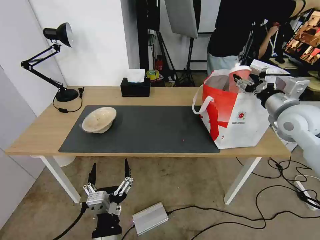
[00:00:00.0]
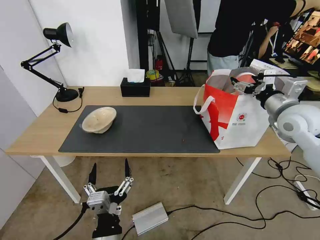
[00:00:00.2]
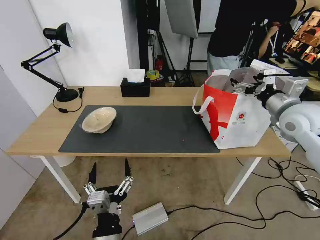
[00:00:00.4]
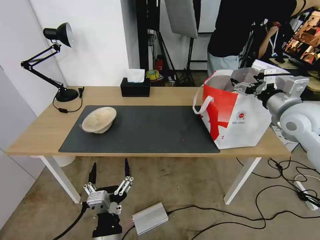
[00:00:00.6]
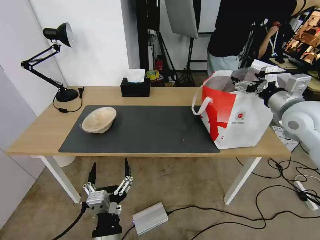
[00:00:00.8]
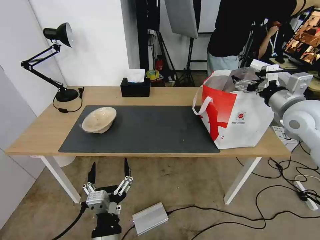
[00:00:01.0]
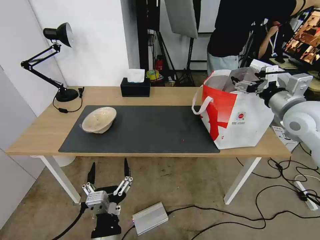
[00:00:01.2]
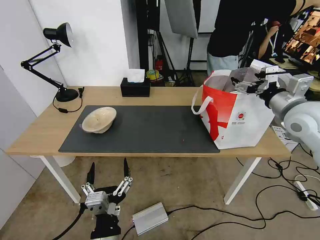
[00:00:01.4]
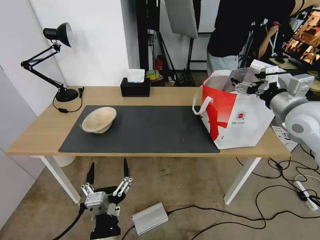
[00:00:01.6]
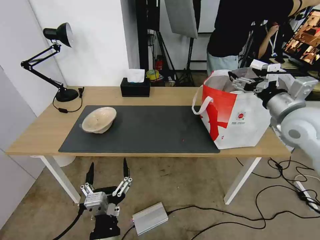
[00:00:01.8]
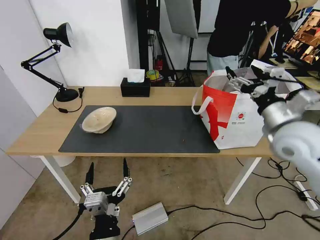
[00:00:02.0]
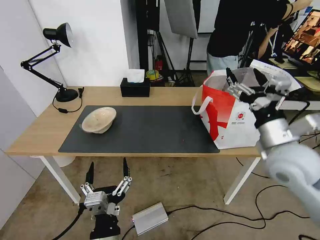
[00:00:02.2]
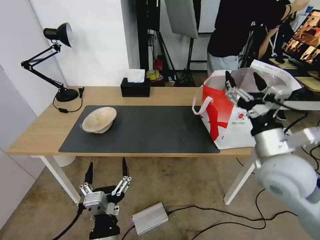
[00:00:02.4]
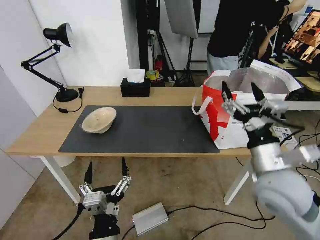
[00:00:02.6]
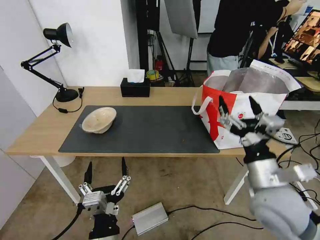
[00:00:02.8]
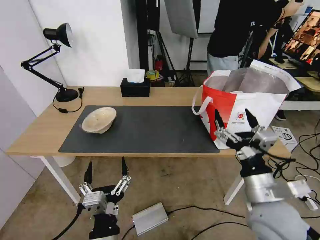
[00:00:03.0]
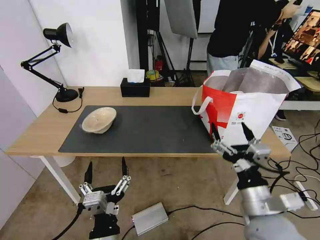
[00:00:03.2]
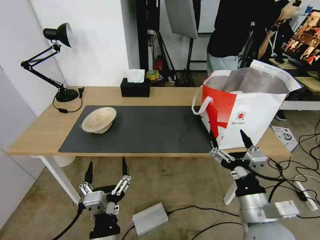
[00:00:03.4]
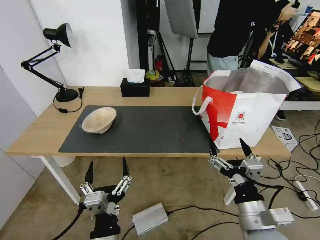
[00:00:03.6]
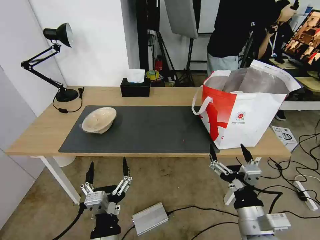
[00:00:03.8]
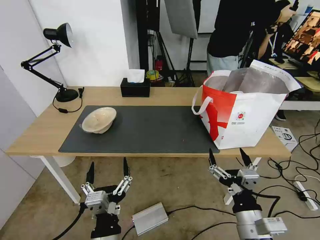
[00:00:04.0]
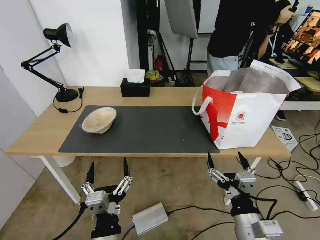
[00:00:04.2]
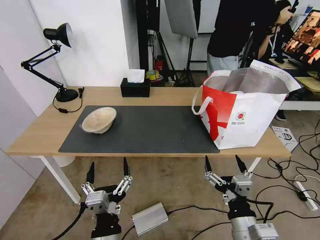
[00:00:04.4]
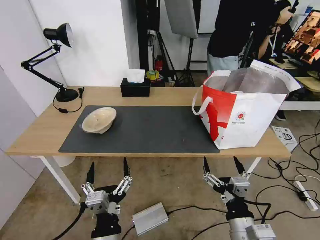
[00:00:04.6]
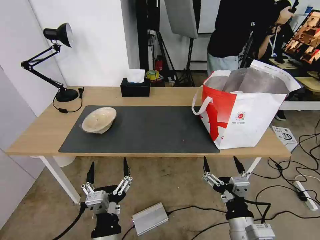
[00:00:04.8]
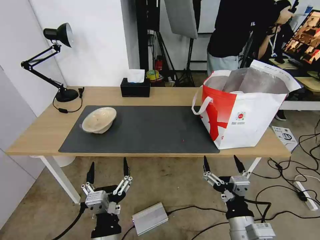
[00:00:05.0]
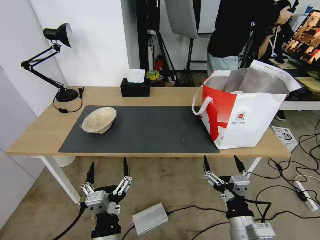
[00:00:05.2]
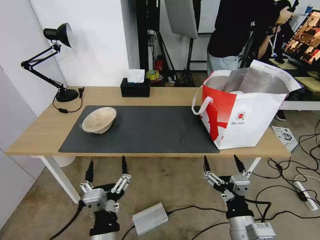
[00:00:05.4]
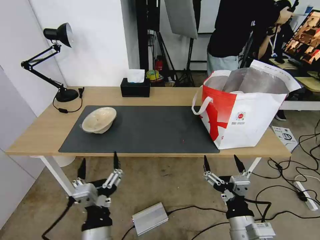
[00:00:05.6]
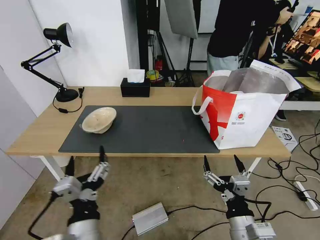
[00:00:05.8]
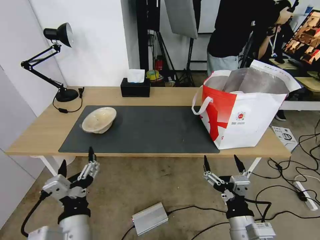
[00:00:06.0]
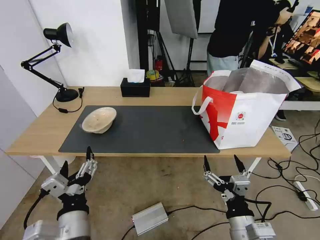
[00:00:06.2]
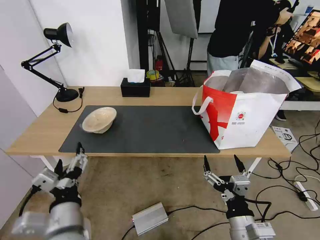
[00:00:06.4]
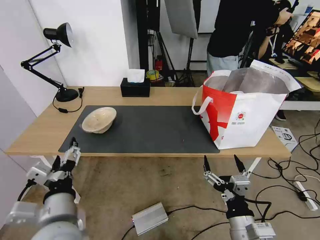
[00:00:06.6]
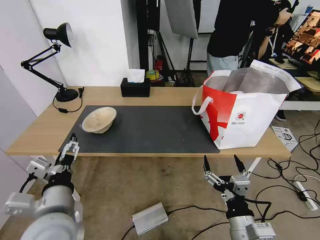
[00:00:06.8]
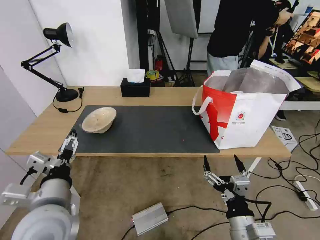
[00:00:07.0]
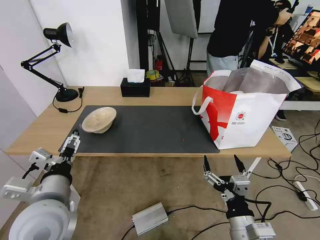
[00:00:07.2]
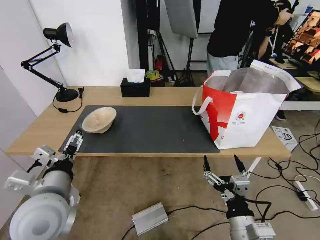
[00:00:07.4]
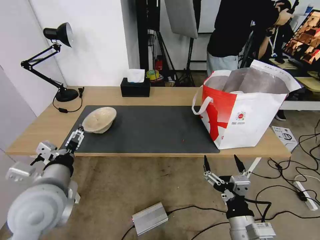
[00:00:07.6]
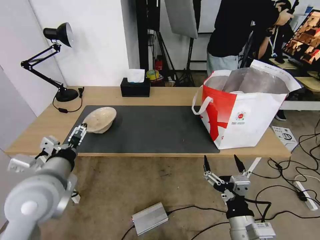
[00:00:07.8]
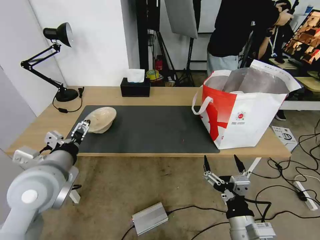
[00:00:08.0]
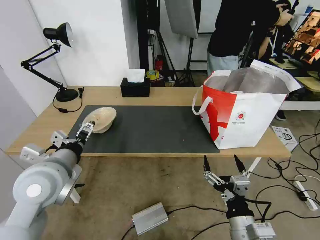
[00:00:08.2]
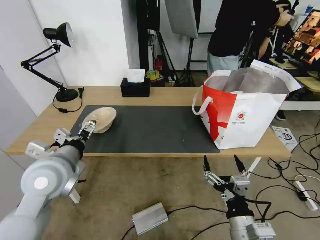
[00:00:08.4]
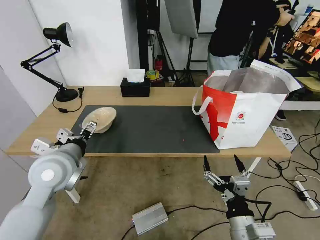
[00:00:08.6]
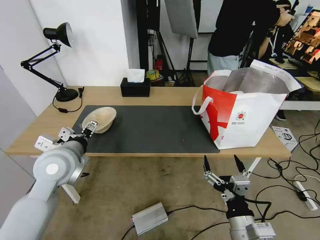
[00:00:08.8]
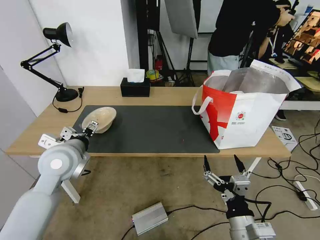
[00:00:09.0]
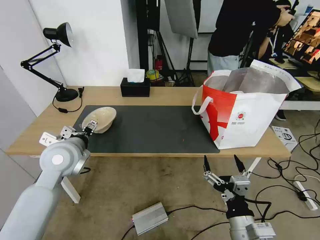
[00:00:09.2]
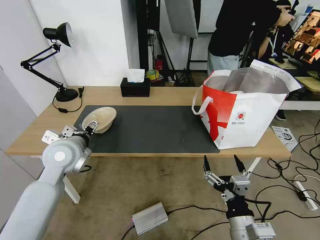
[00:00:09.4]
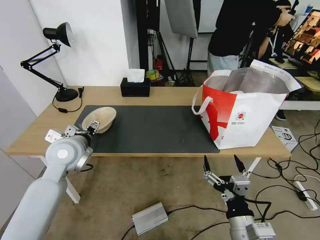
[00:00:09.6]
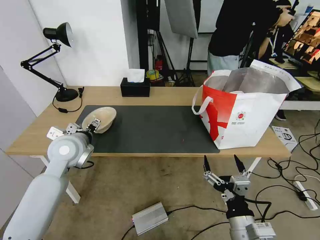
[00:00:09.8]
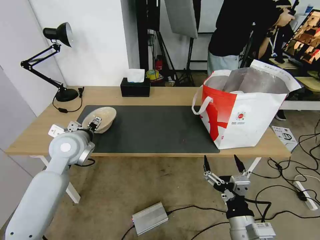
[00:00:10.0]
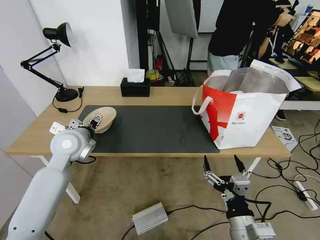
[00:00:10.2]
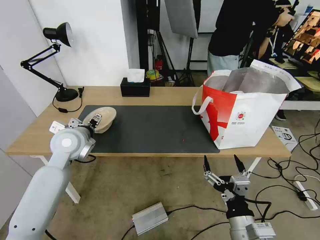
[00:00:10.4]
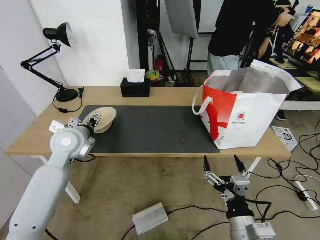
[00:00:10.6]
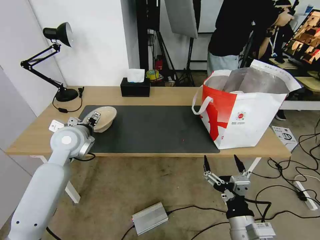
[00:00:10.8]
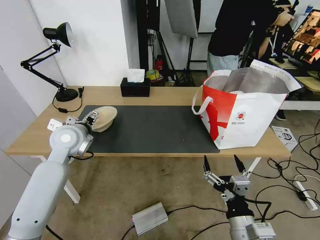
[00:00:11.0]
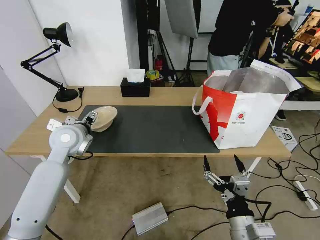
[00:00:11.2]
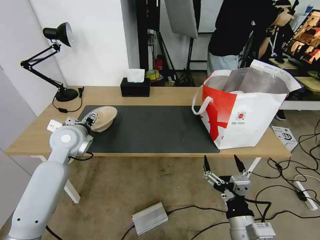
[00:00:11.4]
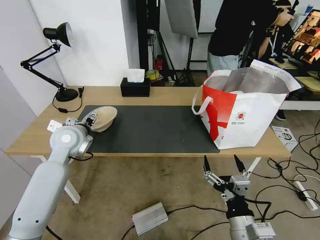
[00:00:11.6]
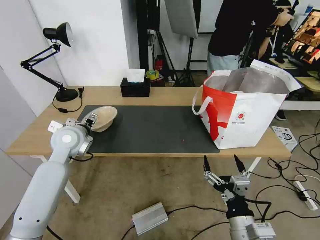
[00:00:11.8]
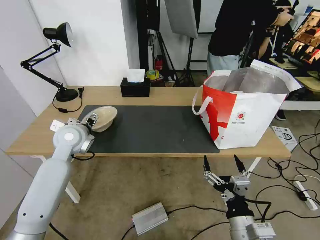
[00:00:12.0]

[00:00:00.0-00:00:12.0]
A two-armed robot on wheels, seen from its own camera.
Task of the whole recording: Pick up the trash from the table and place it into the takeout bag.
00:00:00.0 to 00:00:01.6: The grippers make only small movements.
00:00:01.6 to 00:00:03.0: The right gripper travels backward, to the left and downward by about 25 cm.
00:00:03.0 to 00:00:04.4: The right gripper goes some 10 cm downward and backward.
00:00:04.4 to 00:00:06.0: The left gripper travels to the left by some 5 cm.
00:00:06.0 to 00:00:07.6: The left gripper goes roughly 15 cm forward, to the left and upward.
00:00:07.6 to 00:00:09.0: The left gripper shifts some 10 cm forward.
00:00:09.0 to 00:00:10.4: The left gripper moves forward, about 5 cm.
00:00:10.4 to 00:00:12.0: The grippers stay close to where they were, moving slightly.

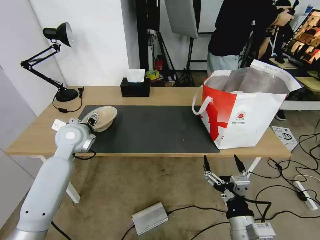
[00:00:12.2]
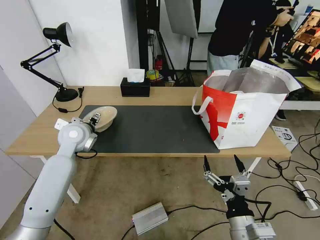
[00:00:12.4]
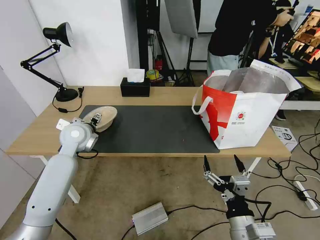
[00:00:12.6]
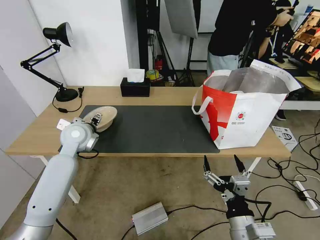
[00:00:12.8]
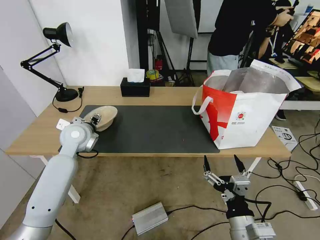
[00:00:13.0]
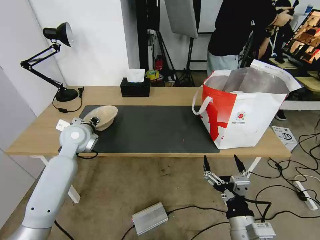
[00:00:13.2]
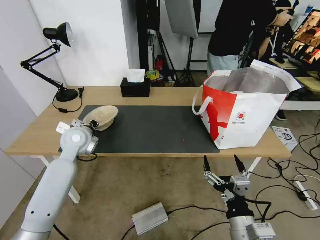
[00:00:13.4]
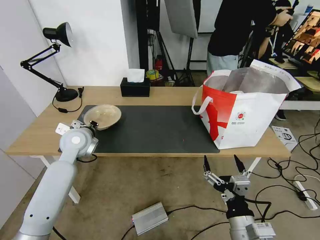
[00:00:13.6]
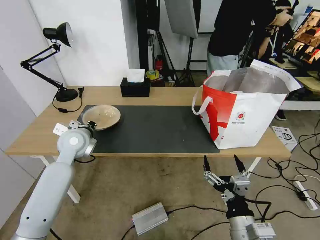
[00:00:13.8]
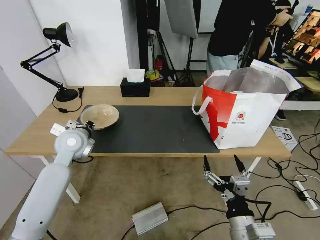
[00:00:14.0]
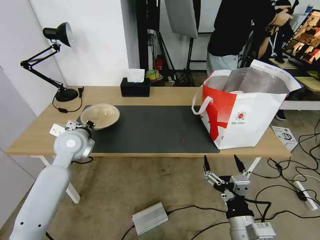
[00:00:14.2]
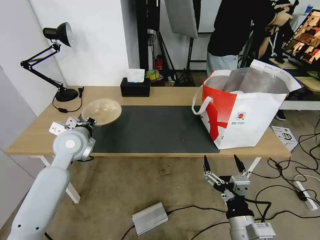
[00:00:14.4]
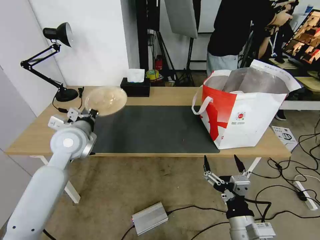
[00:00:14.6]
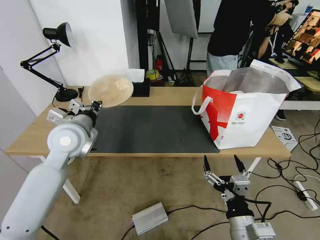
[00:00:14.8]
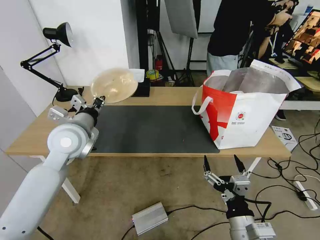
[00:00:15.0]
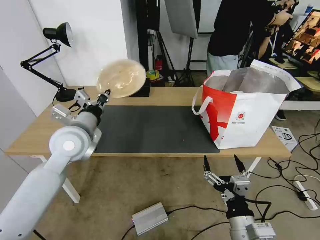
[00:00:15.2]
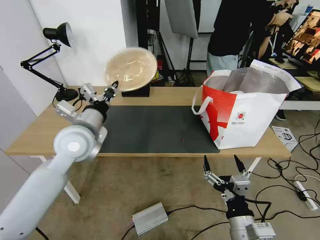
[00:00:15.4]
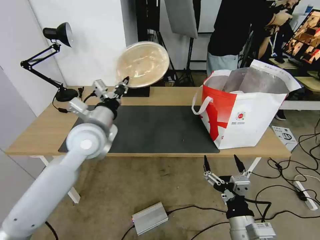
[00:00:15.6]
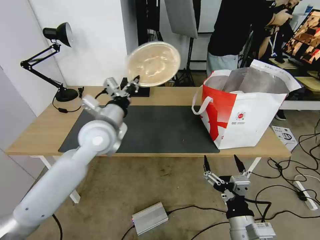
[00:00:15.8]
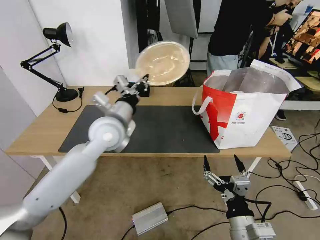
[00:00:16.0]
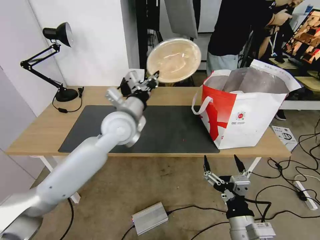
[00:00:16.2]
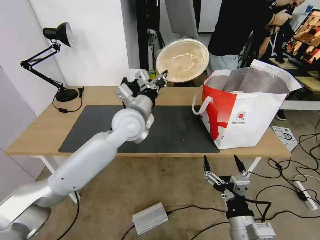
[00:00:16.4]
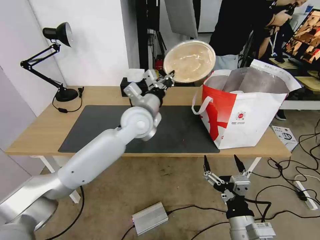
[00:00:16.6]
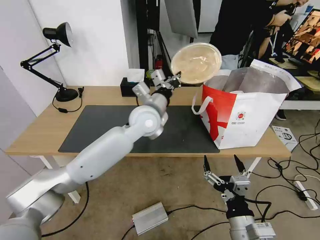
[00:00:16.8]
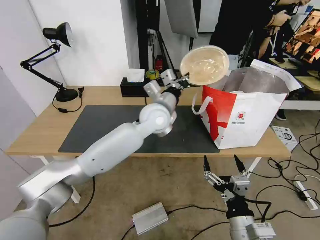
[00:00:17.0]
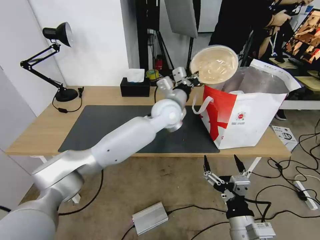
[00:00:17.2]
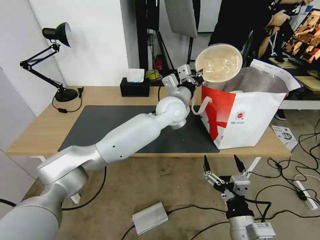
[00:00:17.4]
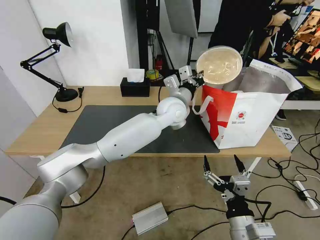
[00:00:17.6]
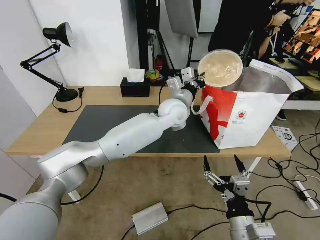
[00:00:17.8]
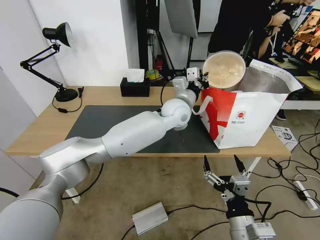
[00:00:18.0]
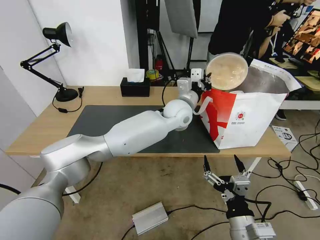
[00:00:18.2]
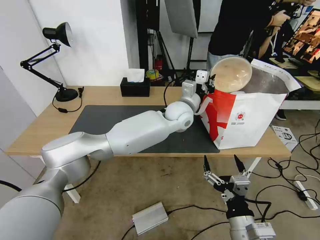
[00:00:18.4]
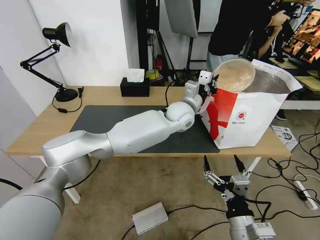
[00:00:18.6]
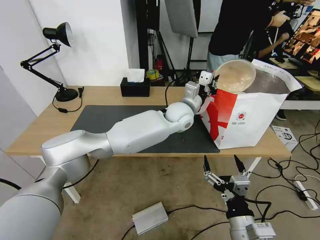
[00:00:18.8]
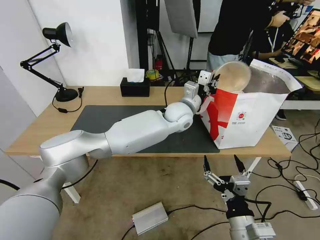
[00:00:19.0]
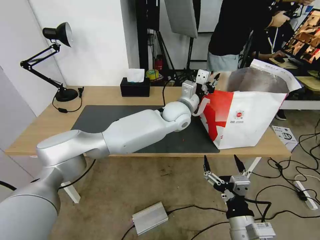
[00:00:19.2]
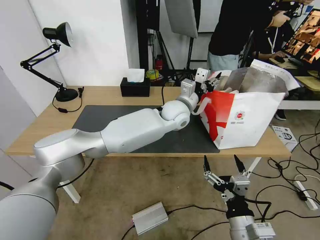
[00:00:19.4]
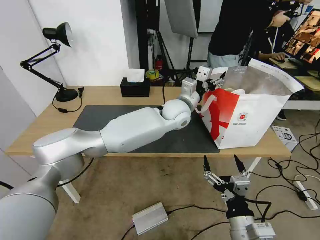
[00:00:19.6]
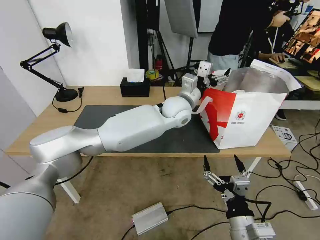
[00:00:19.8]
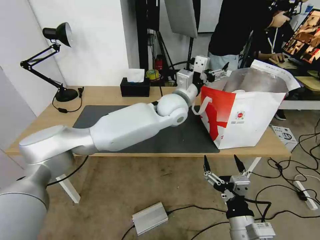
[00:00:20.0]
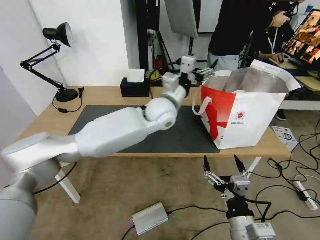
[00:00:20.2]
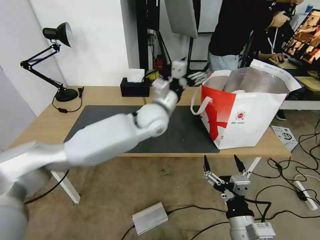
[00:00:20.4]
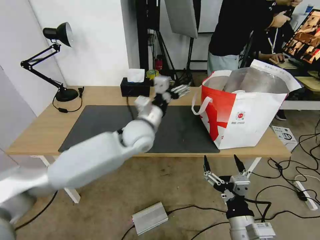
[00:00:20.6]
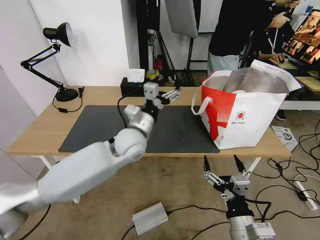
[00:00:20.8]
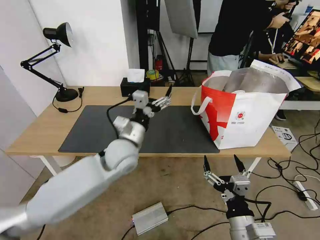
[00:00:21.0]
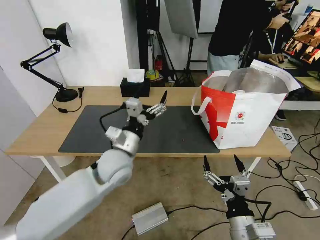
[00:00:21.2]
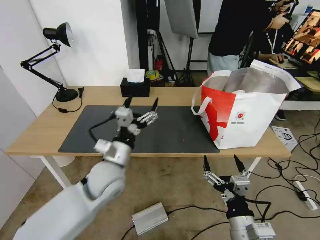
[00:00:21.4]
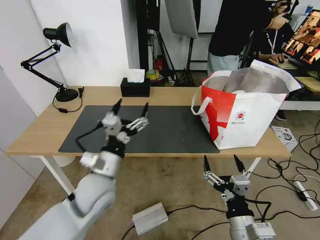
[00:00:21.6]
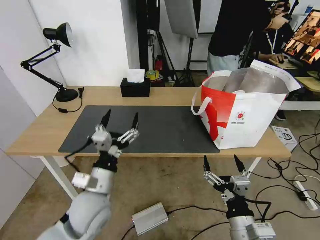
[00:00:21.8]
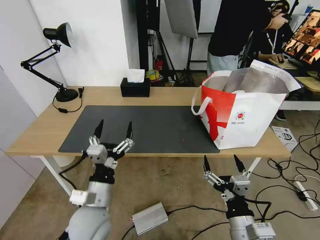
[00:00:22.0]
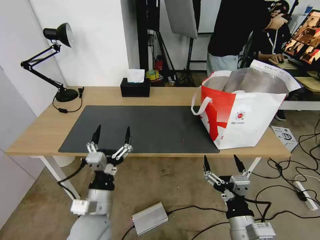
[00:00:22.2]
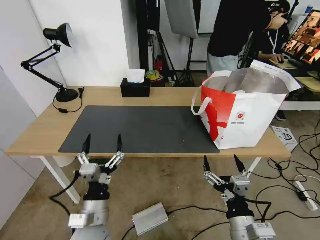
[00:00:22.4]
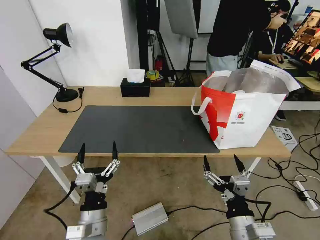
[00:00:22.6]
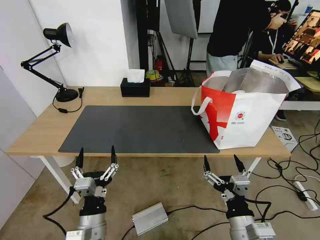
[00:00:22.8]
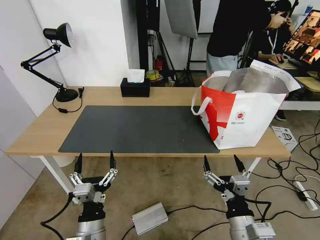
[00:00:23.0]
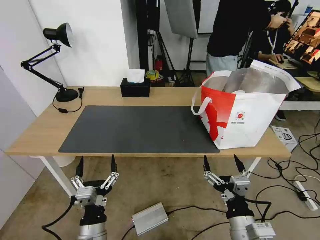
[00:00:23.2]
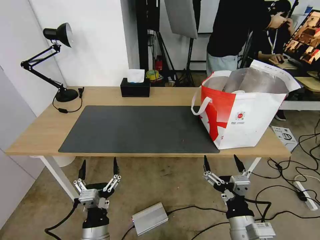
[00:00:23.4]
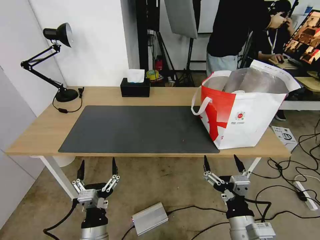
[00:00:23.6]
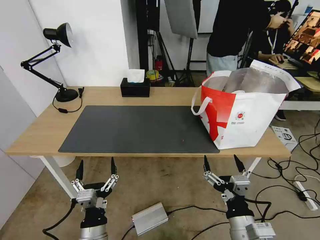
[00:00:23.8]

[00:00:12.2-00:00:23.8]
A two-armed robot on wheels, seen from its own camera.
Task of the whole recording: Pick up the trash from the table and place it into the takeout bag.
00:00:12.2 to 00:00:13.6: The left gripper closes up.
00:00:13.6 to 00:00:15.0: The left gripper shifts approximately 10 cm upward and backward.
00:00:15.0 to 00:00:16.6: The left gripper is displaced to the right by some 15 cm.
00:00:16.6 to 00:00:18.0: The left gripper goes approximately 15 cm to the right and forward.
00:00:18.0 to 00:00:19.4: The left gripper opens.
00:00:19.4 to 00:00:21.0: The left gripper is displaced to the left and backward by some 20 cm, and opens.
00:00:21.0 to 00:00:22.4: The left gripper travels backward and downward by roughly 20 cm.
00:00:22.4 to 00:00:23.8: The left gripper travels backward by roughly 5 cm.
